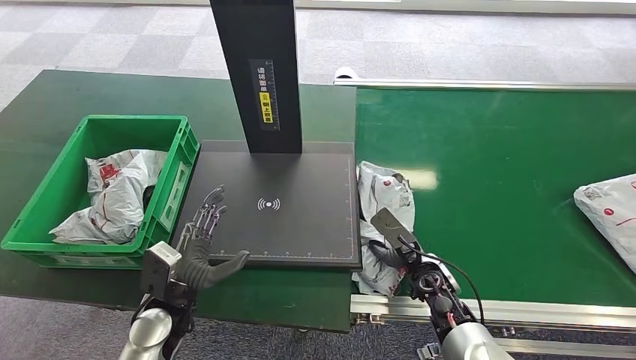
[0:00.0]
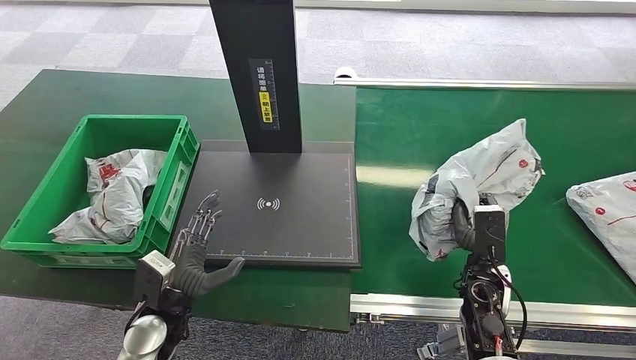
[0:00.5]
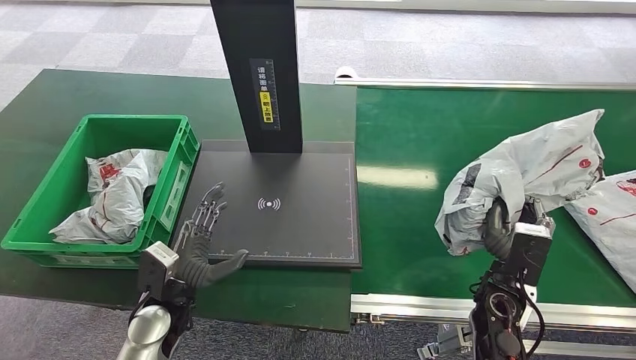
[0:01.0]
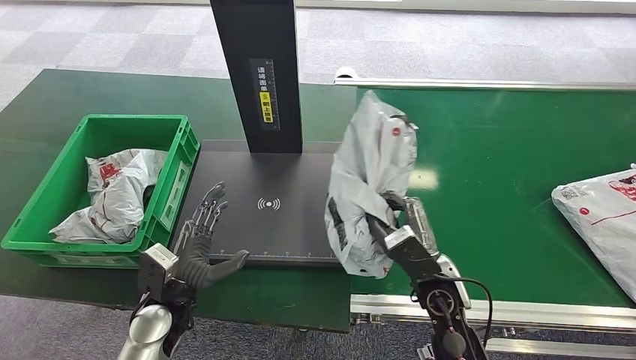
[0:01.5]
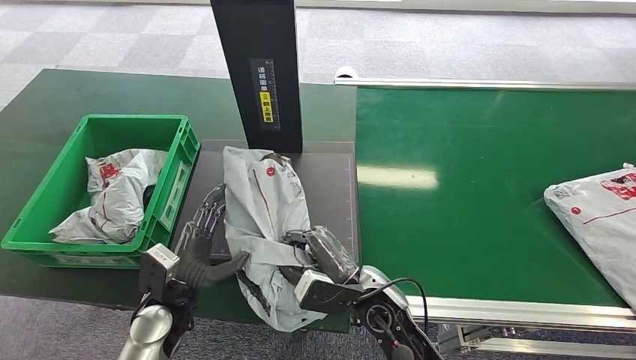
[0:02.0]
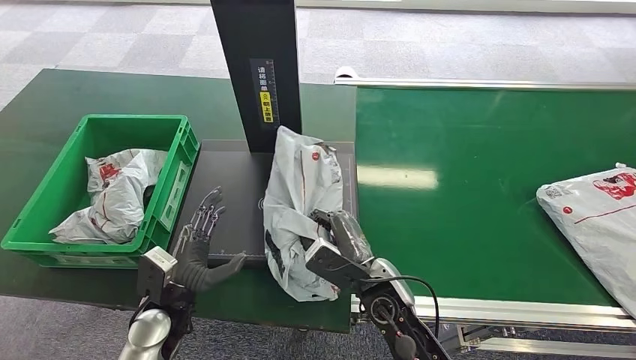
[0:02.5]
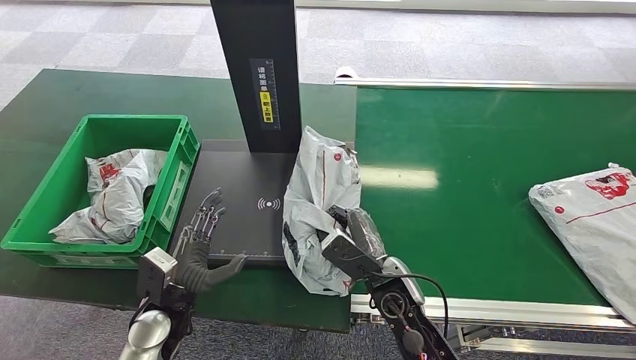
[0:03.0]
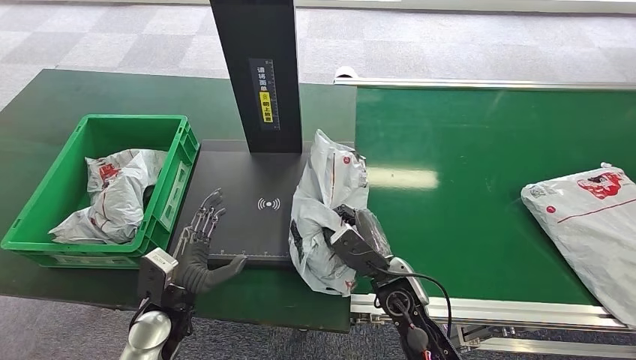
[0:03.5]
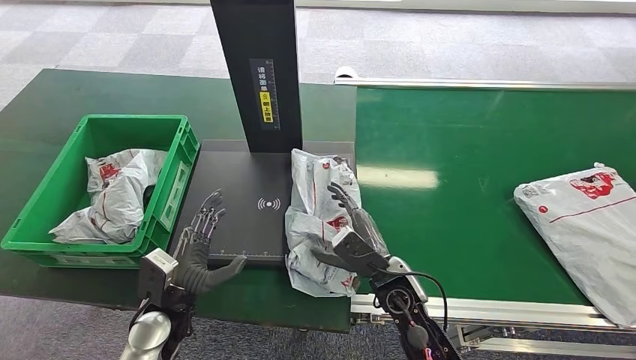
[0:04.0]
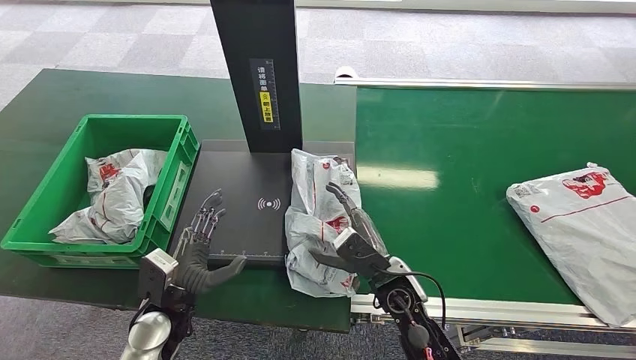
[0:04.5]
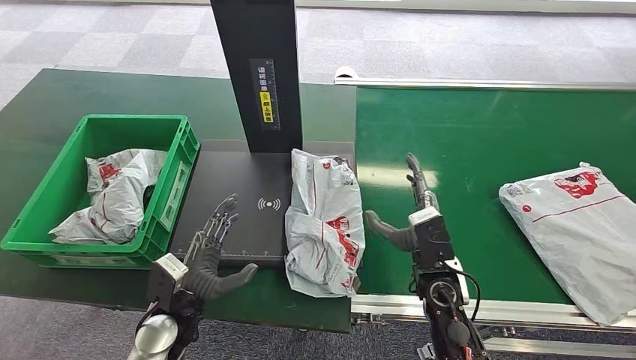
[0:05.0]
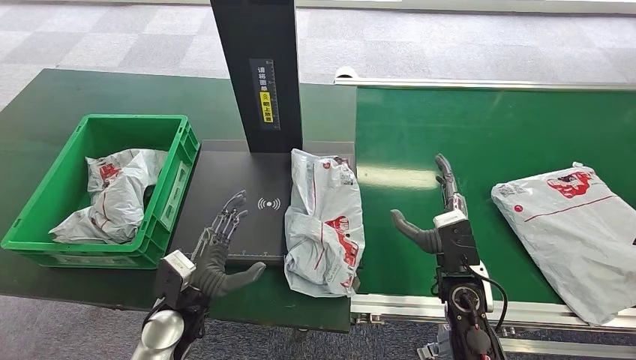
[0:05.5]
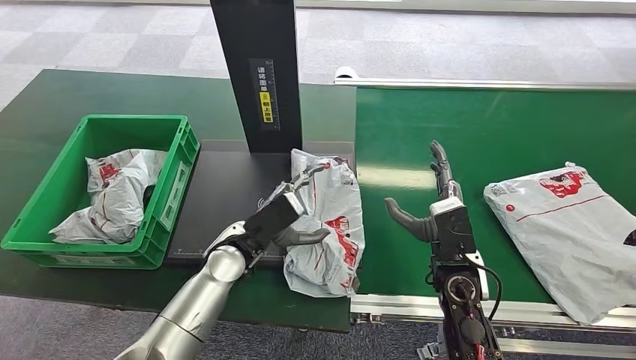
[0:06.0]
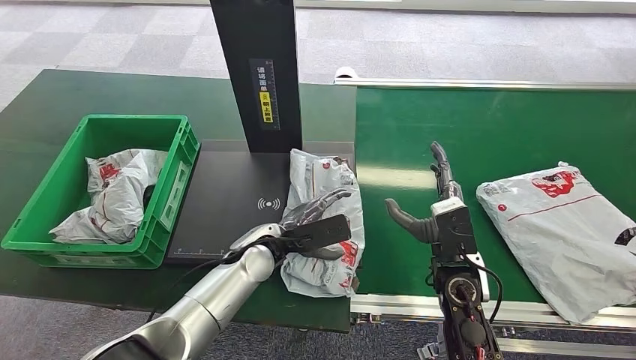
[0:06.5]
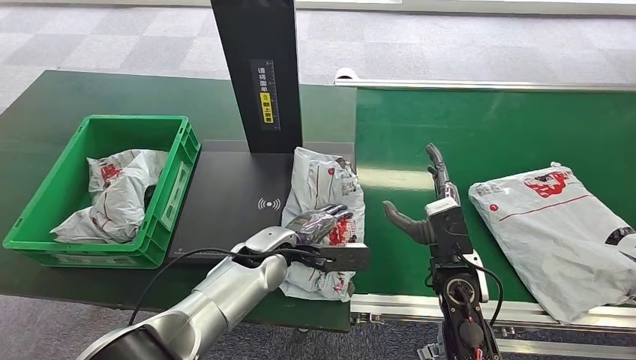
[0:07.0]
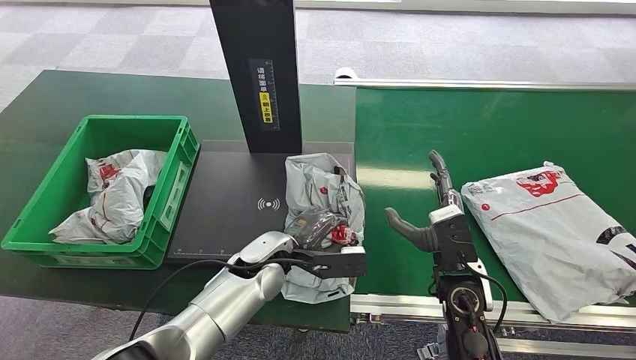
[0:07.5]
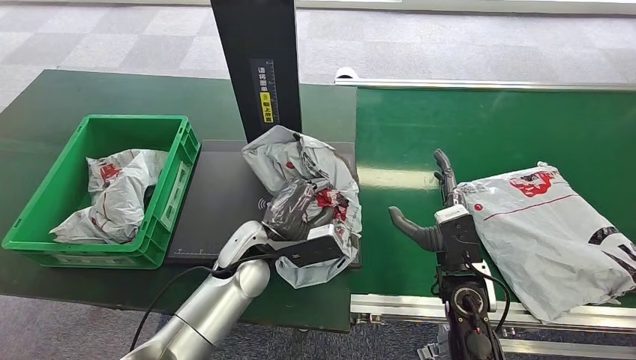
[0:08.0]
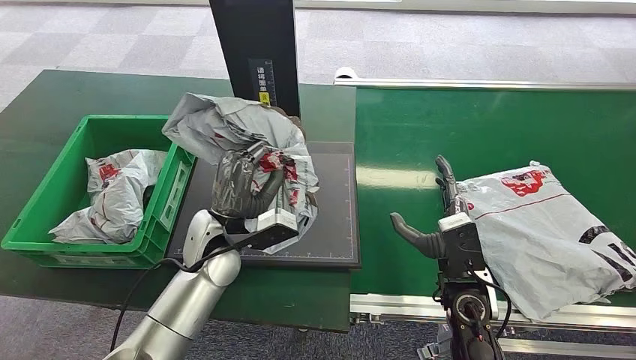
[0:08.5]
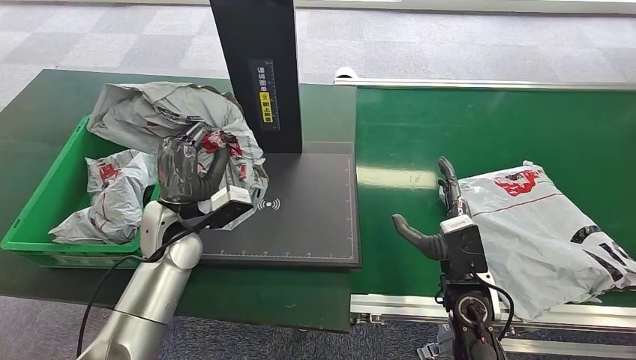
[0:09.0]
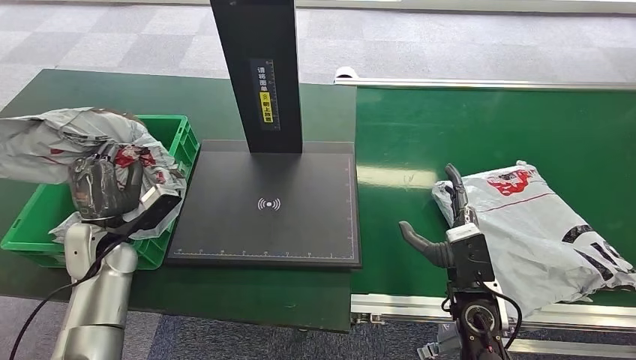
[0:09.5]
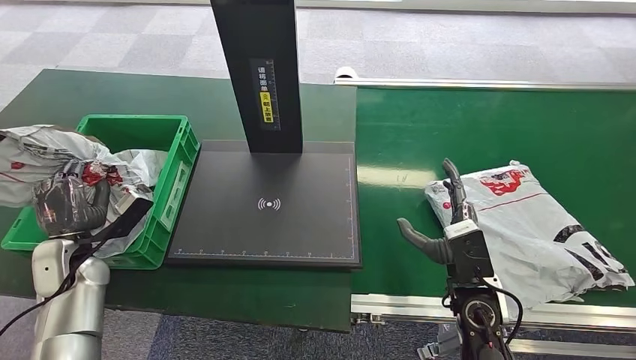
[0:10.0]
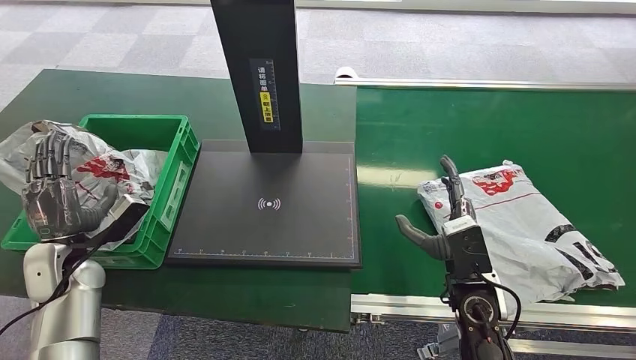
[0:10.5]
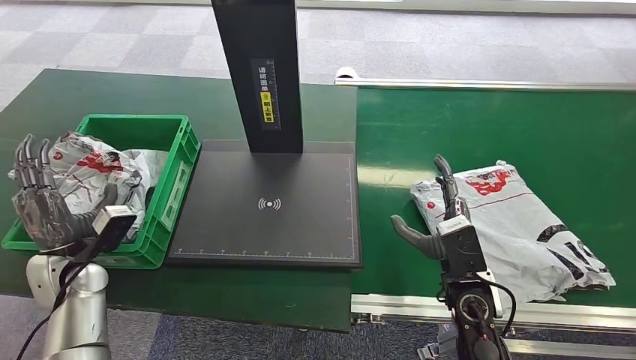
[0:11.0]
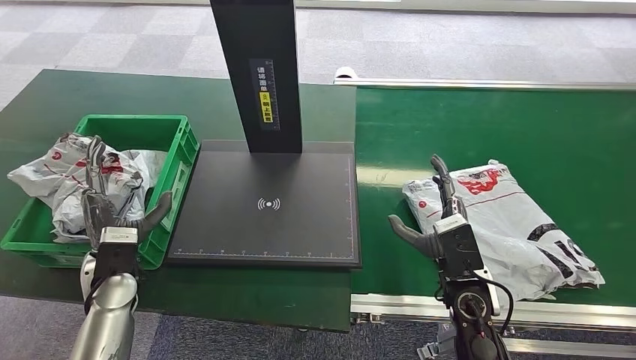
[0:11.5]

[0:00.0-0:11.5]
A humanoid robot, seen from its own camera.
Step, 0:01.0 to 0:05.5: Place the package onto the inbound machine.
Step, 0:06.5 to 0:09.0: Pick up the package from the inbound machine.
Step, 0:09.5 to 0:11.5: Place the package into the parcel locker.
0:00.0 to 0:02.0: The right hand goes approximately 15 cm to the left, upward and backward.
0:02.0 to 0:04.0: The right hand moves some 5 cm.
0:04.0 to 0:06.0: The right hand heads to the right, covering roughly 10 cm, while the left hand shifts about 15 cm to the right, forward and upward.
0:06.0 to 0:07.5: The left hand goes some 5 cm to the right.
0:09.5 to 0:11.5: The left hand travels to the left and back again, approximately 5 cm each way.
